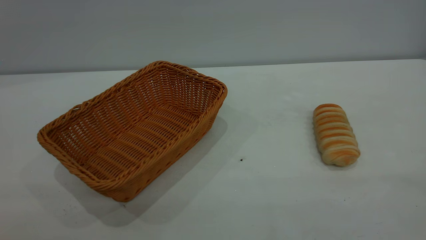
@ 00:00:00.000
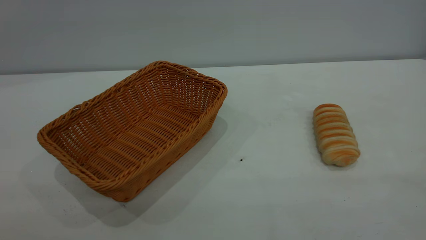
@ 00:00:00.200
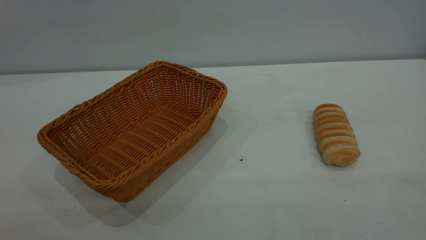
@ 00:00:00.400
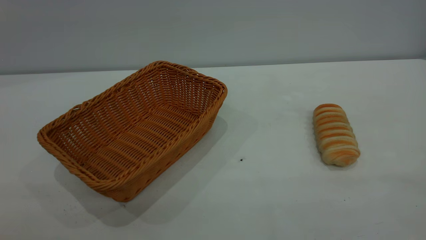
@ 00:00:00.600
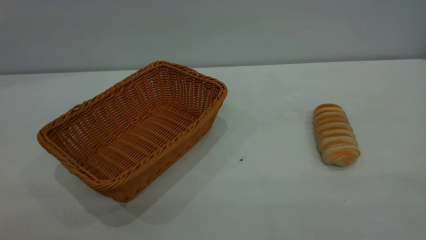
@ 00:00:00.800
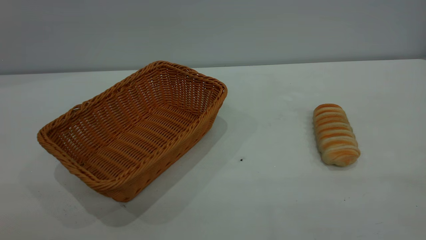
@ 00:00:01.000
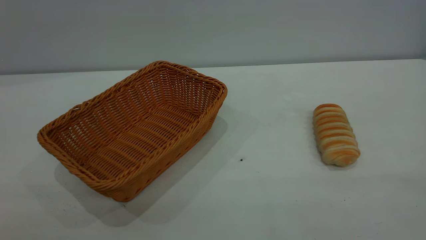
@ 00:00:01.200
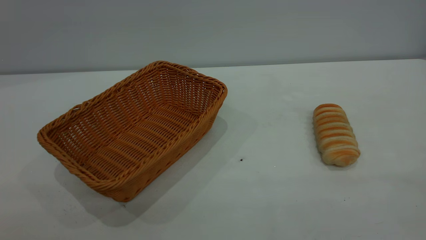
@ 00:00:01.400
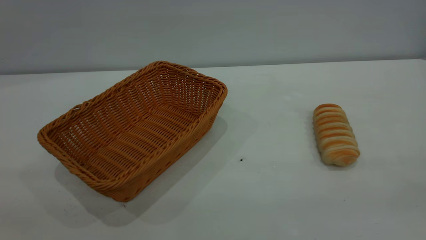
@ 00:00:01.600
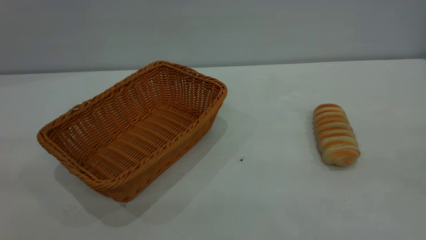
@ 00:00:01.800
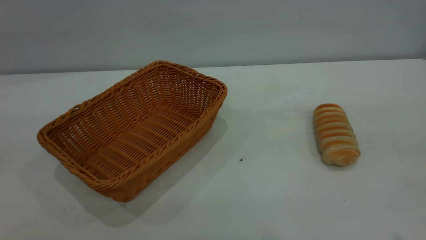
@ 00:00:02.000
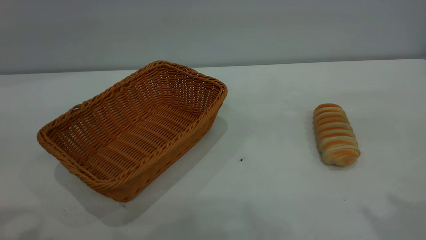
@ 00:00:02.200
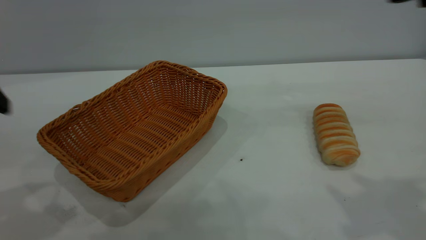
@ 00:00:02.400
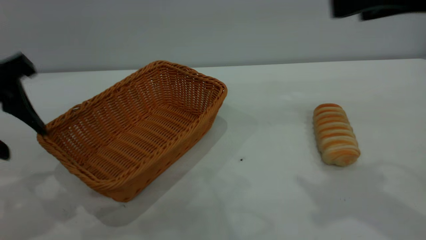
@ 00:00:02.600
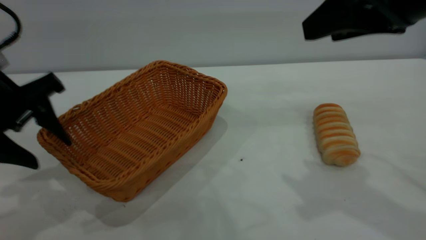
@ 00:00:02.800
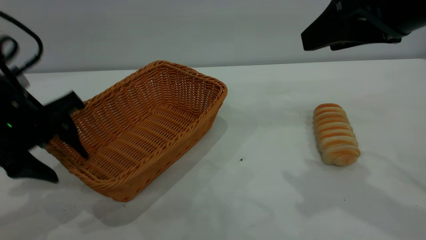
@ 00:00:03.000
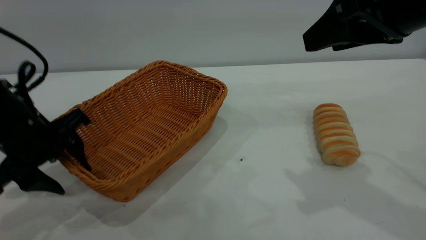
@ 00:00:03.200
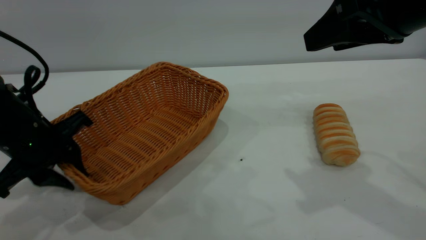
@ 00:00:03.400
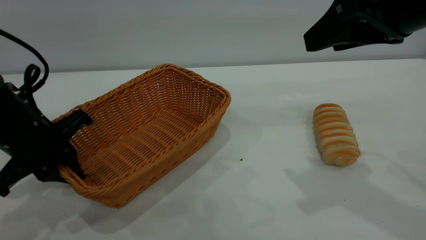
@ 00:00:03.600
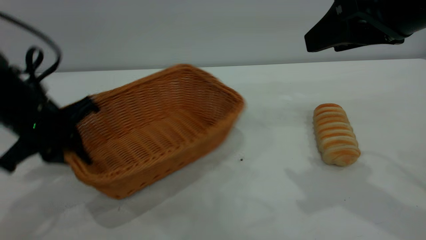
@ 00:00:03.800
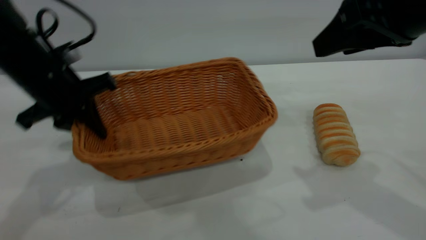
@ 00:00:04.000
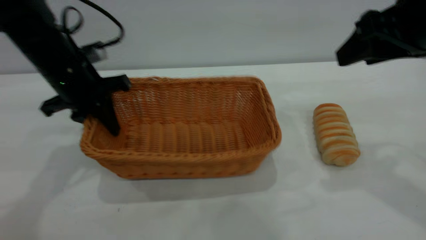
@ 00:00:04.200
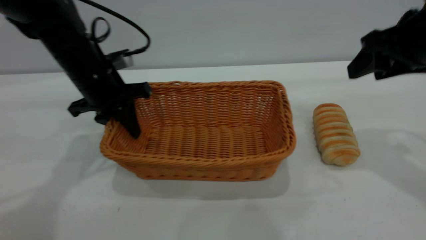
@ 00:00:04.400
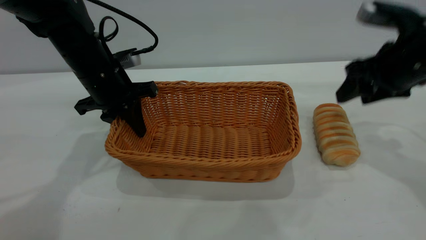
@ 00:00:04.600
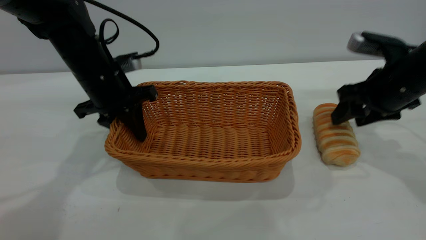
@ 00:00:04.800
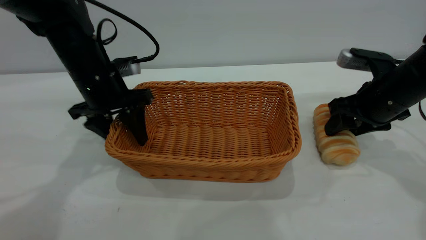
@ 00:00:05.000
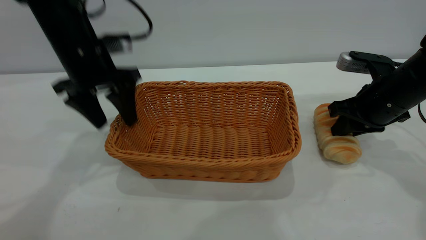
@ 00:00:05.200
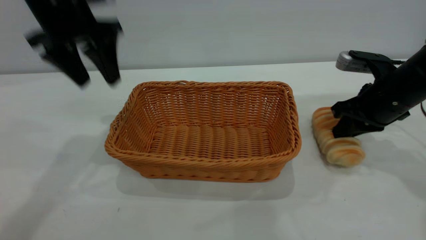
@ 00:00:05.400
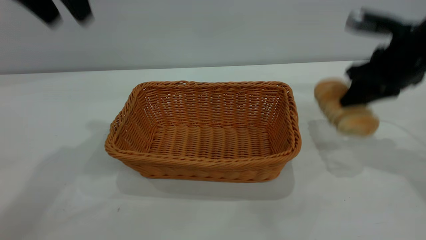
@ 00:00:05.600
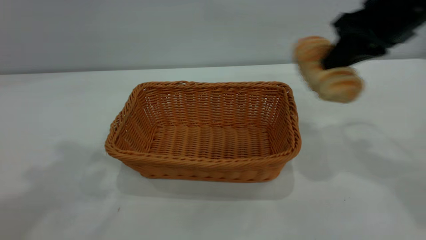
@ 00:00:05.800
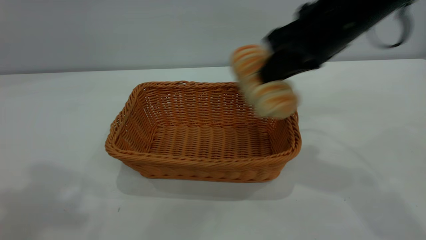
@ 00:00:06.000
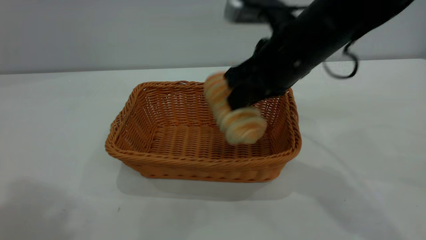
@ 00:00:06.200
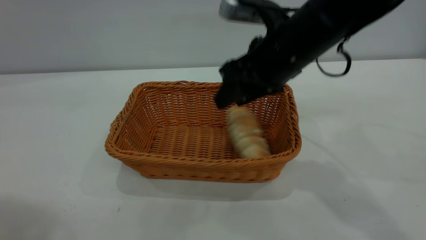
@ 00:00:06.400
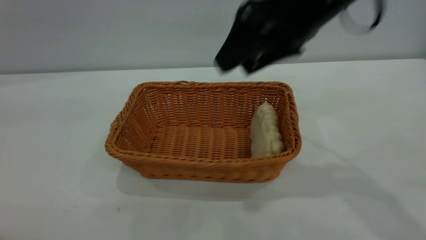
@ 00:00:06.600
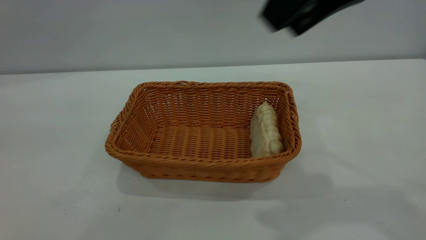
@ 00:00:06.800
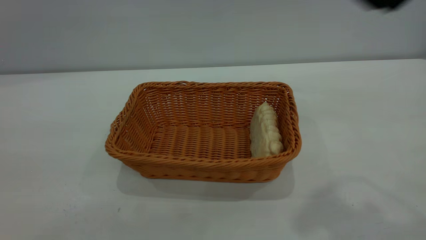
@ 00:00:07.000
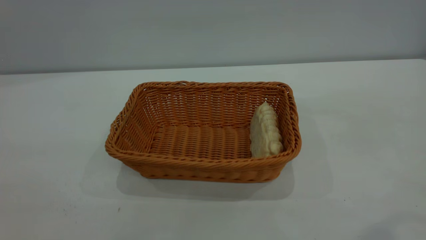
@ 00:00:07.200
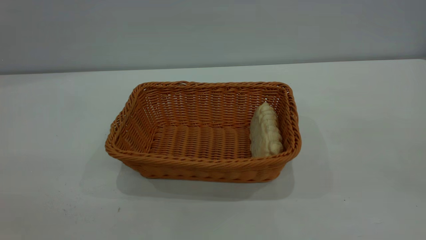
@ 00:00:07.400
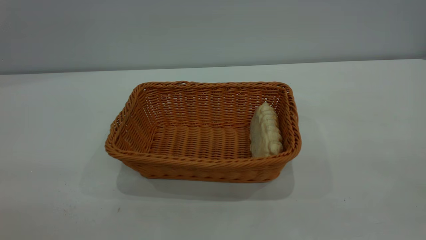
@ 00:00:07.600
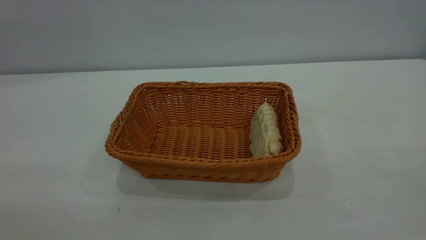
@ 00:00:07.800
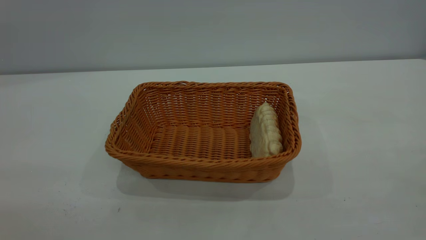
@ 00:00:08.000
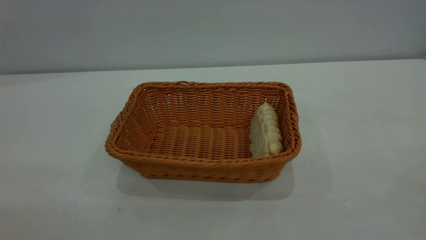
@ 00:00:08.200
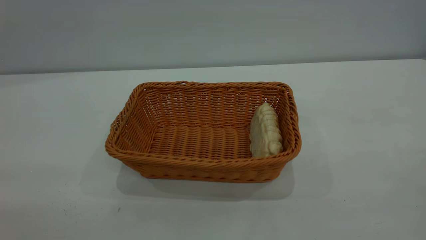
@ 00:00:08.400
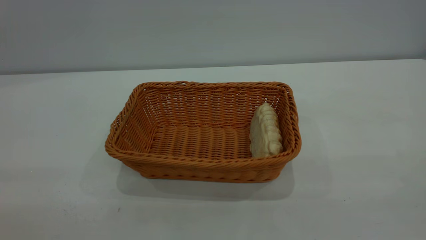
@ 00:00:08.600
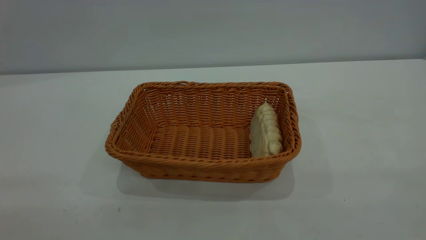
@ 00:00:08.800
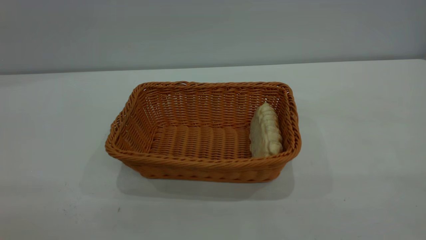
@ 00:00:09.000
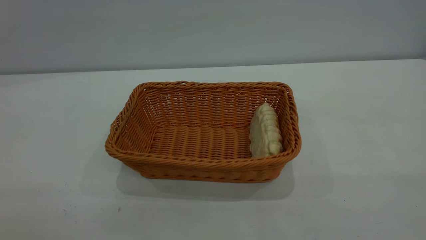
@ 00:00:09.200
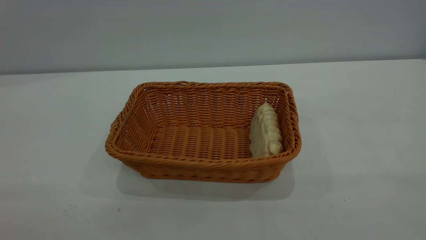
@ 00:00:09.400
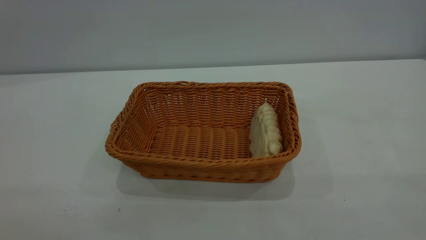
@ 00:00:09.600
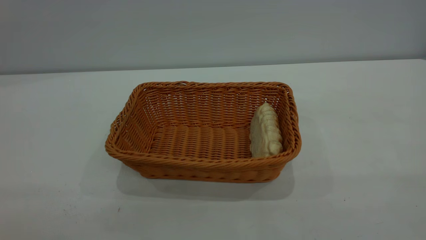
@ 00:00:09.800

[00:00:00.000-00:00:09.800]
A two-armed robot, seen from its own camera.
Task of the whole recording: One hand grasps the yellow basket and places it in the middle of the table, while the other hand picks up the long bread and puts it into the yellow basket.
Step, 00:00:00.000 to 00:00:05.200: Move the basket to the center of view.
Step, 00:00:05.800 to 00:00:06.600: place the bread into the basket.
00:00:00.000 to 00:00:01.400: Neither gripper changes place.
00:00:01.400 to 00:00:02.800: The right gripper is displaced forward by roughly 30 cm. The left gripper goes approximately 35 cm forward and downward.
00:00:02.800 to 00:00:04.200: The left gripper shifts approximately 15 cm forward, and closes its fingers; the right gripper goes approximately 5 cm to the right.
00:00:04.200 to 00:00:05.600: The right gripper is displaced forward by about 5 cm, reaches roughly 15 cm downward, then returns, and closes its fingers, while the left gripper goes roughly 25 cm upward, and opens its fingers.
00:00:05.600 to 00:00:07.000: The right gripper goes up and down, about 20 cm each way, reversing 2 times, and opens its fingers; the left gripper goes some 30 cm backward.
